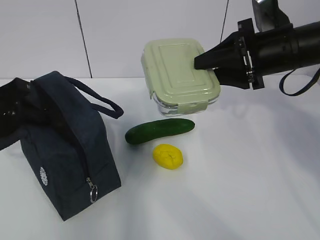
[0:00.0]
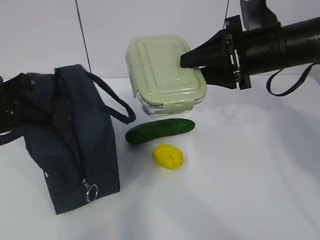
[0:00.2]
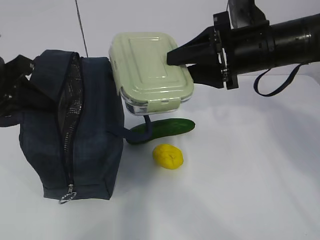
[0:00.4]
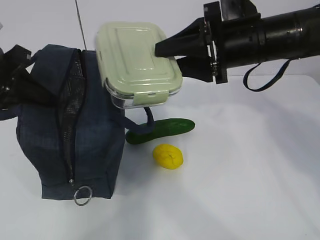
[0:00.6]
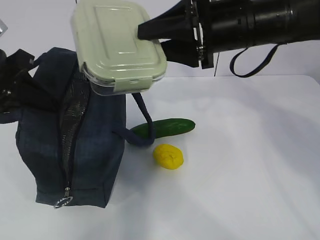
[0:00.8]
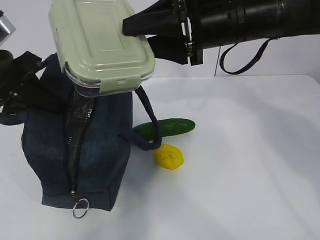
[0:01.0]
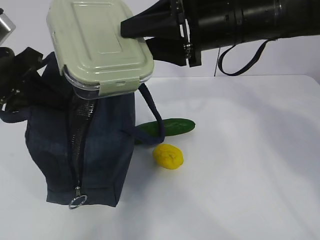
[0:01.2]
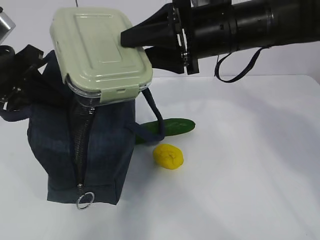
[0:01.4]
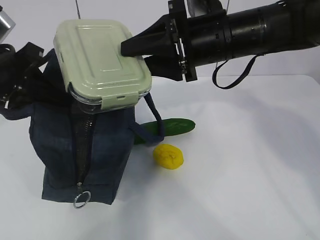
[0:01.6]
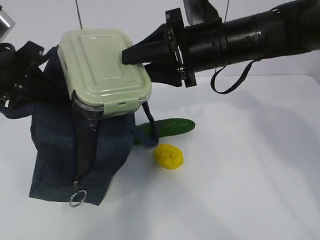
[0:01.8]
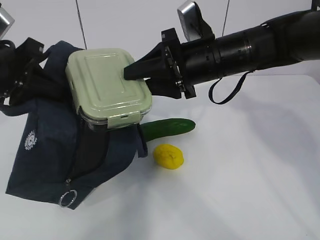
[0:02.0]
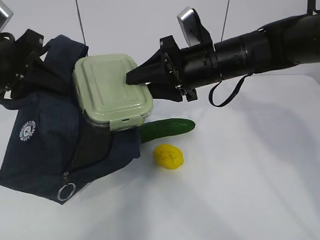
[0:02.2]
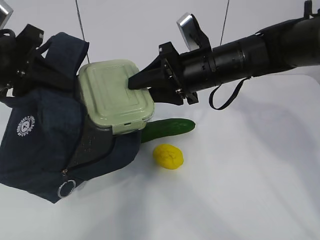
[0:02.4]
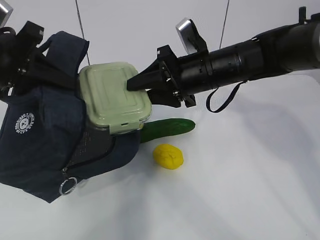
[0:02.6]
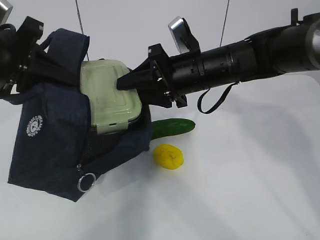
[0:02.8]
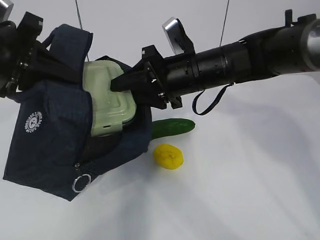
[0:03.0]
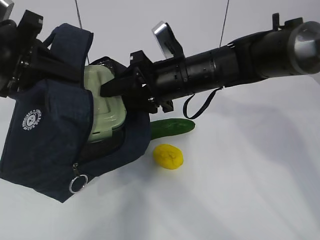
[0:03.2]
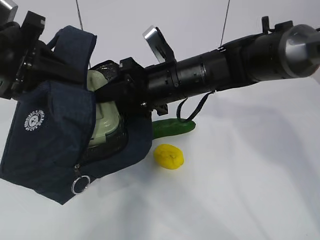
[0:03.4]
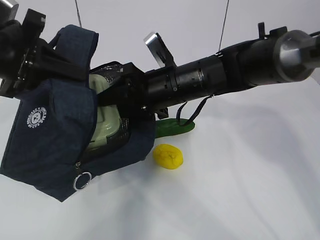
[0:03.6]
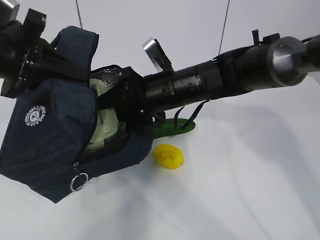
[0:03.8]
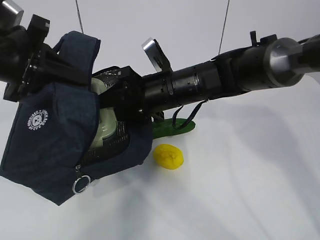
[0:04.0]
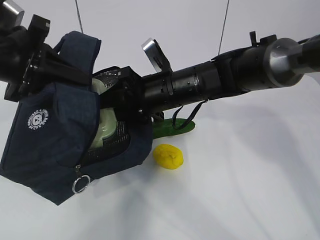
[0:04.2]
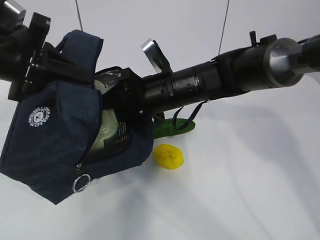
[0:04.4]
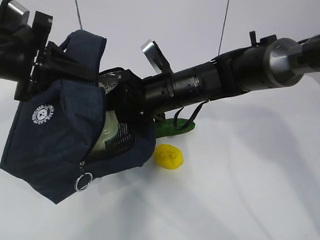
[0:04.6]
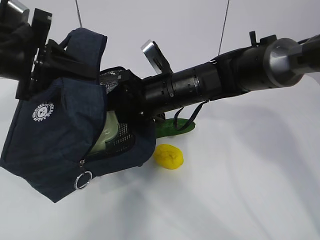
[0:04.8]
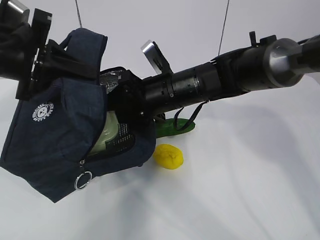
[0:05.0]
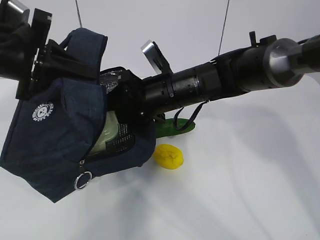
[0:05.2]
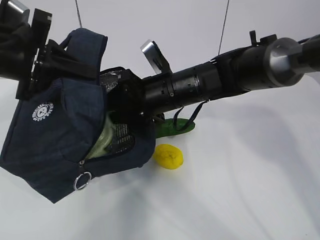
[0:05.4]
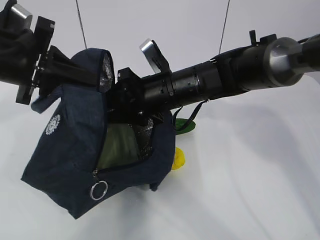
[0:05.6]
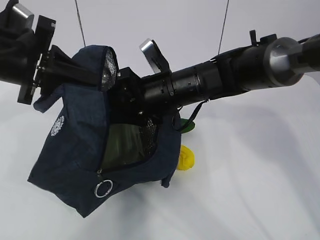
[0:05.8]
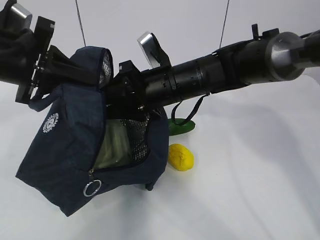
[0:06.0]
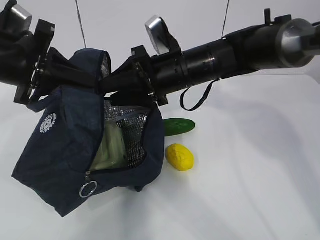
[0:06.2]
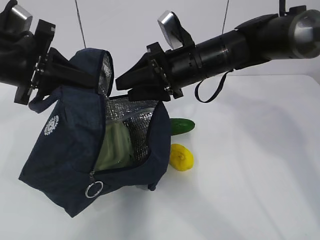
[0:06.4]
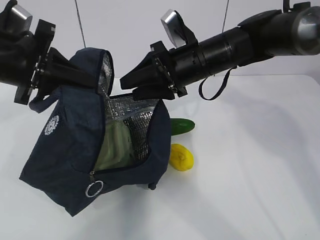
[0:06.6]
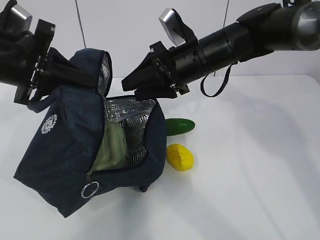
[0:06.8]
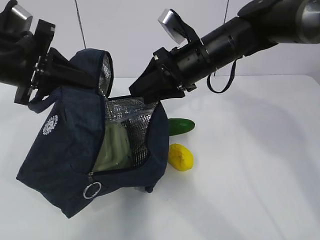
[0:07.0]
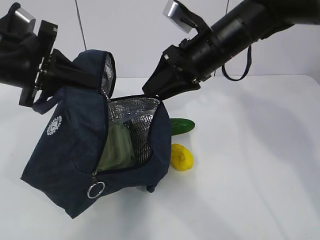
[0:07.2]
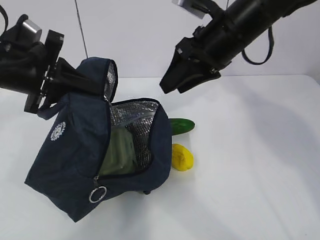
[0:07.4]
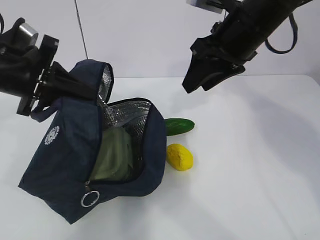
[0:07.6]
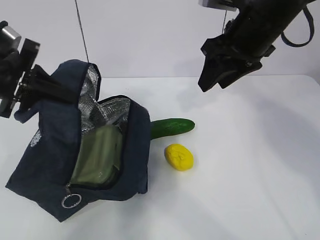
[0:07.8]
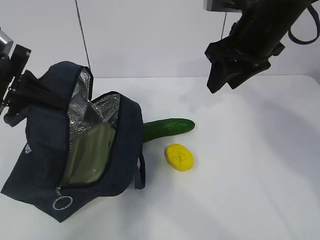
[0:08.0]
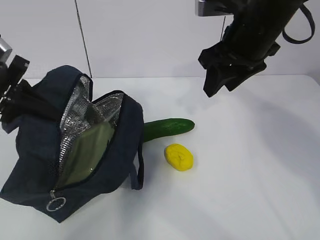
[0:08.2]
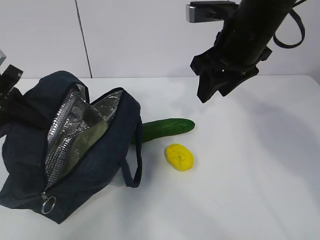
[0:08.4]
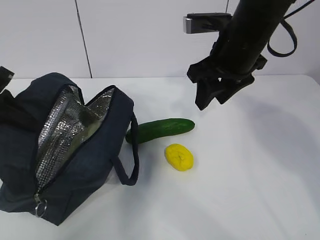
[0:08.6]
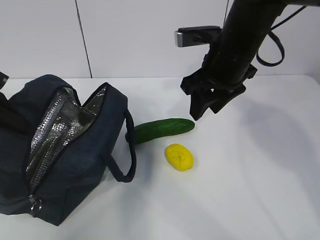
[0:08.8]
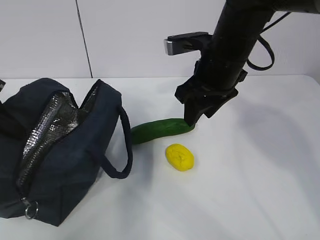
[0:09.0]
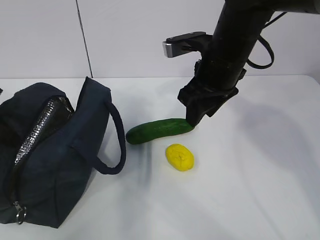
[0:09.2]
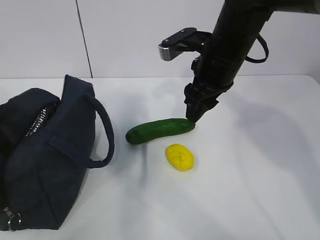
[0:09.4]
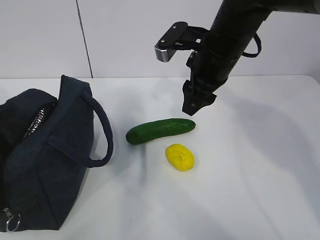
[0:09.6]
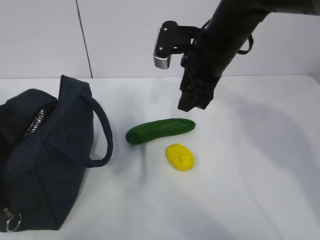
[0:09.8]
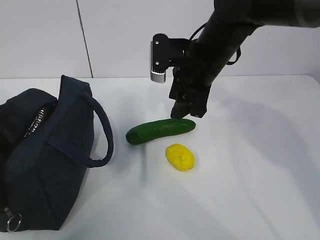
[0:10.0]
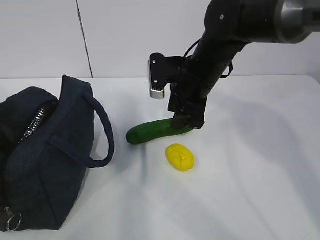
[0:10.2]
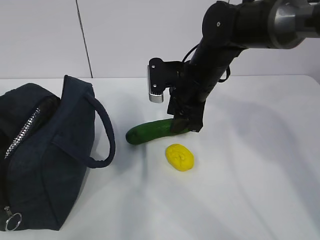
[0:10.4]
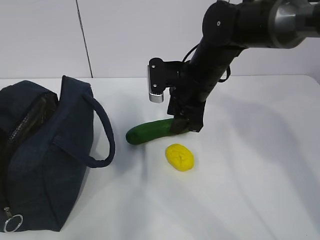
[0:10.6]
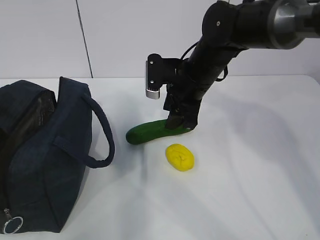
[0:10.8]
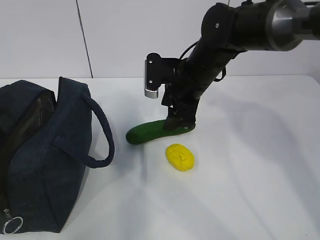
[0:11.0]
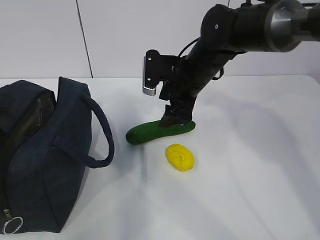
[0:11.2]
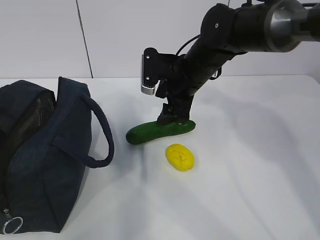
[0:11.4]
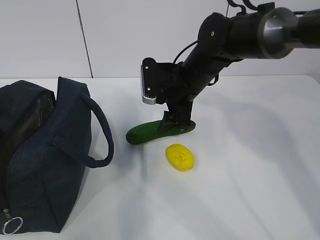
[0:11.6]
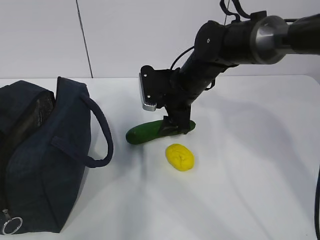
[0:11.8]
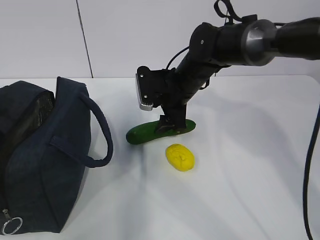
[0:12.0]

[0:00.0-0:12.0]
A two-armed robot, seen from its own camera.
Step, 0:00.6 to 0:08.0: Grab the cucumber with your right hand.
Step, 0:08.4 to 0:12.0: Place it into the bag with your right hand.
0:00.0 to 0:01.6: The left gripper moves upward, approximately 5 cm, and closes. The right gripper shifts about 10 cm to the left.
0:01.6 to 0:03.0: The right gripper moves downward, approximately 5 cm.
0:06.0 to 0:07.6: The right gripper heads to the right and upward, covering approximately 15 cm.
0:07.6 to 0:09.0: The right gripper changes place by some 5 cm. Meanwhile the left gripper travels to the left by roughly 10 cm.
0:09.0 to 0:10.4: The right gripper is displaced downward by roughly 5 cm.
0:10.4 to 0:12.0: The right gripper ends up approximately 5 cm from where it was.

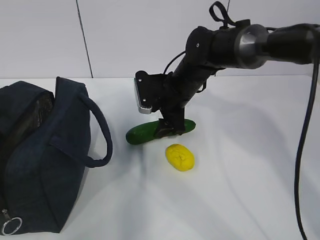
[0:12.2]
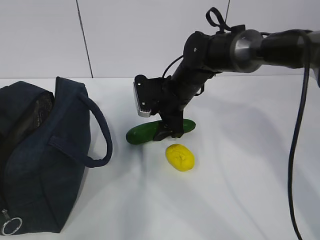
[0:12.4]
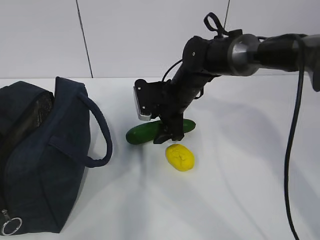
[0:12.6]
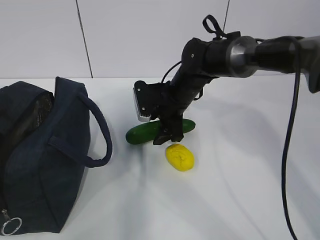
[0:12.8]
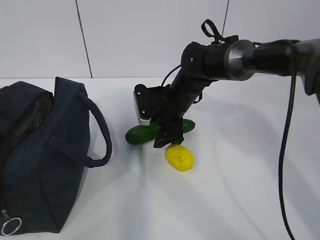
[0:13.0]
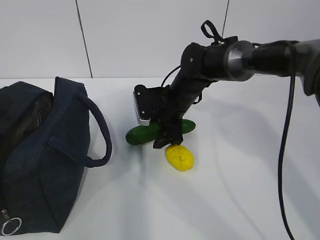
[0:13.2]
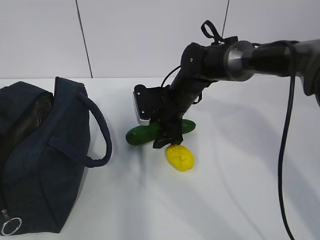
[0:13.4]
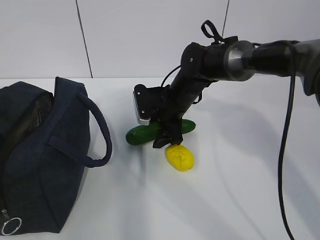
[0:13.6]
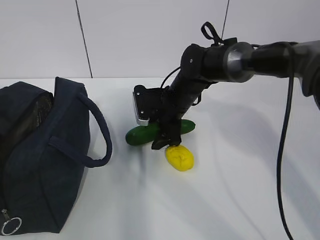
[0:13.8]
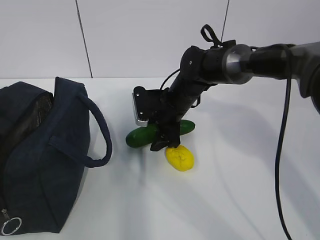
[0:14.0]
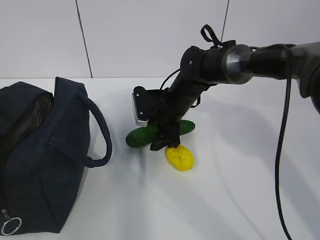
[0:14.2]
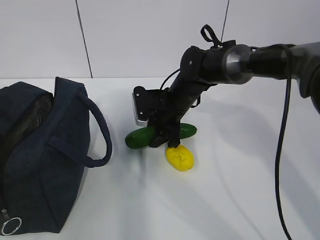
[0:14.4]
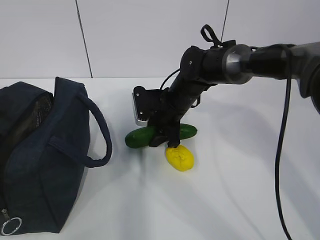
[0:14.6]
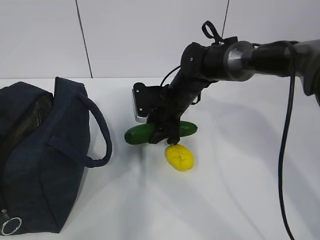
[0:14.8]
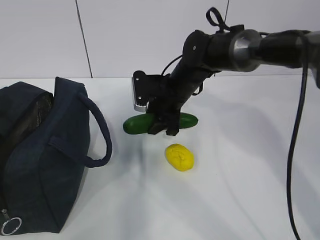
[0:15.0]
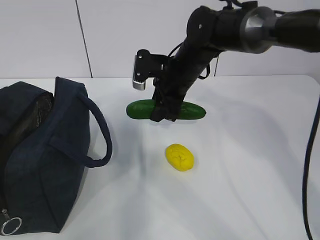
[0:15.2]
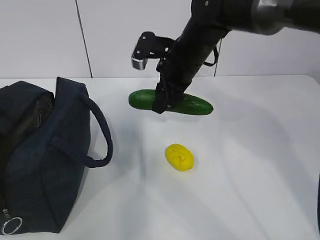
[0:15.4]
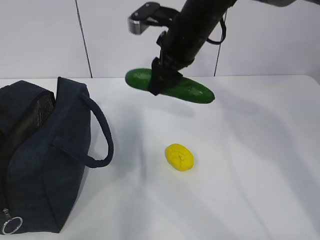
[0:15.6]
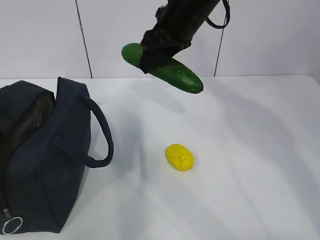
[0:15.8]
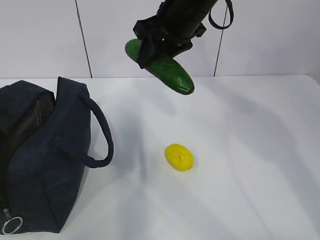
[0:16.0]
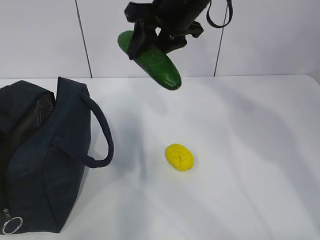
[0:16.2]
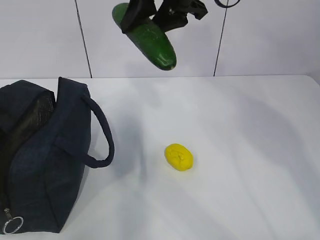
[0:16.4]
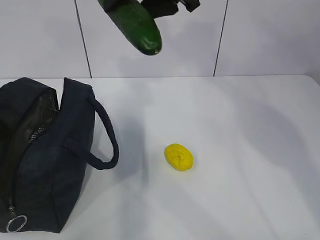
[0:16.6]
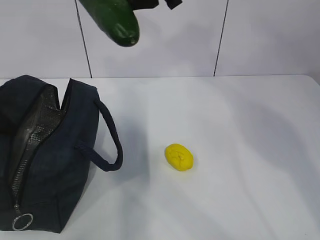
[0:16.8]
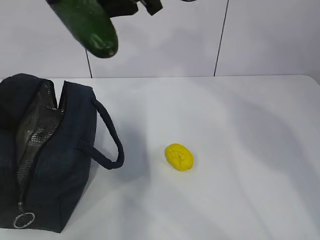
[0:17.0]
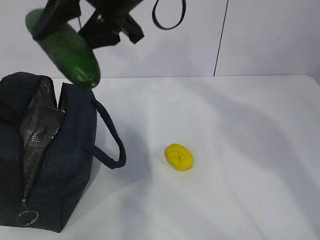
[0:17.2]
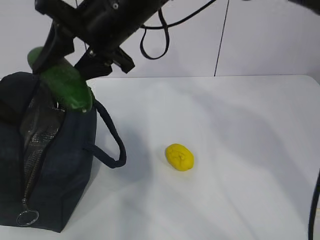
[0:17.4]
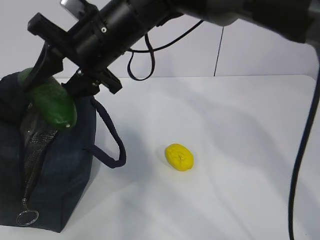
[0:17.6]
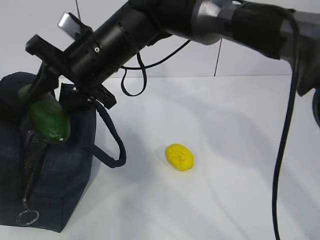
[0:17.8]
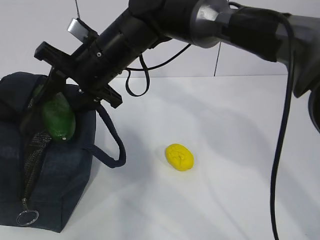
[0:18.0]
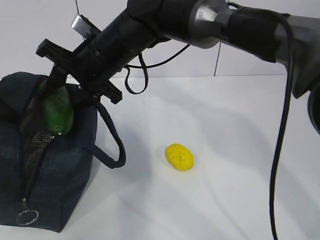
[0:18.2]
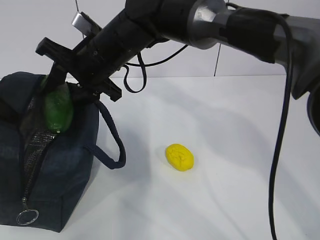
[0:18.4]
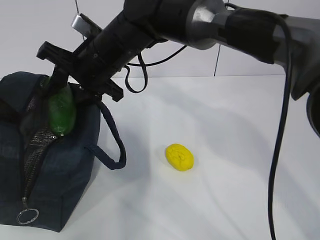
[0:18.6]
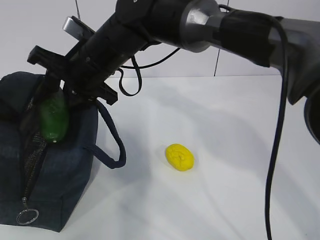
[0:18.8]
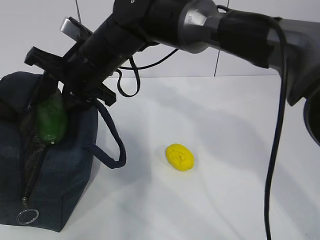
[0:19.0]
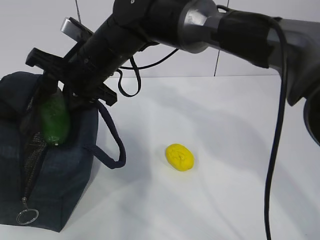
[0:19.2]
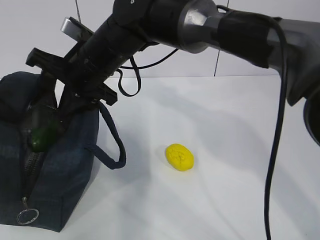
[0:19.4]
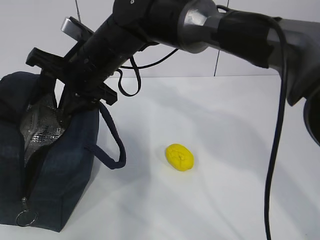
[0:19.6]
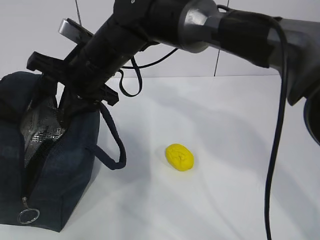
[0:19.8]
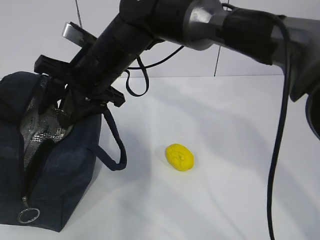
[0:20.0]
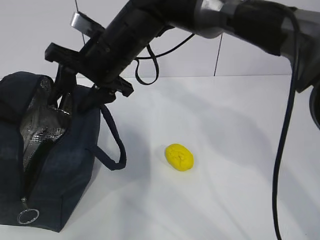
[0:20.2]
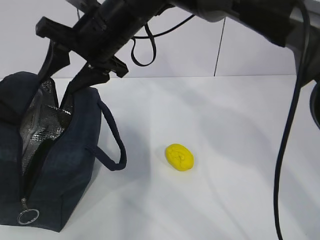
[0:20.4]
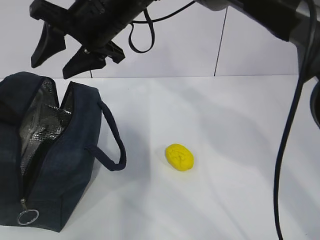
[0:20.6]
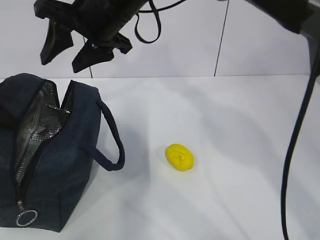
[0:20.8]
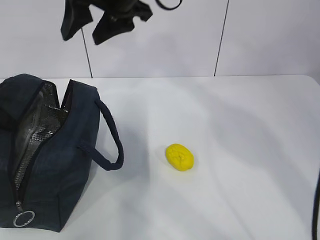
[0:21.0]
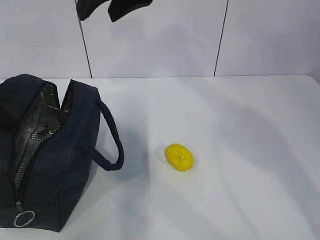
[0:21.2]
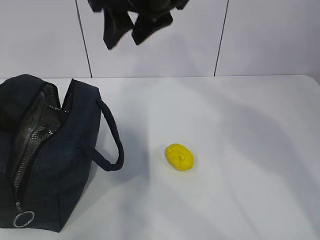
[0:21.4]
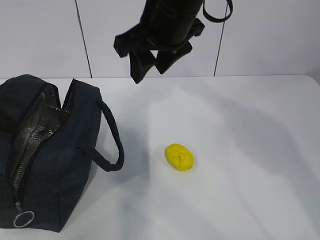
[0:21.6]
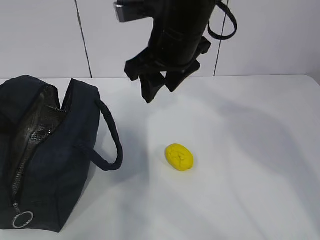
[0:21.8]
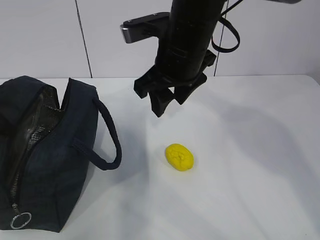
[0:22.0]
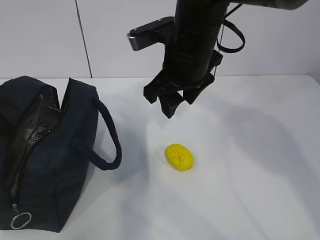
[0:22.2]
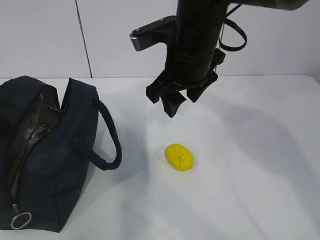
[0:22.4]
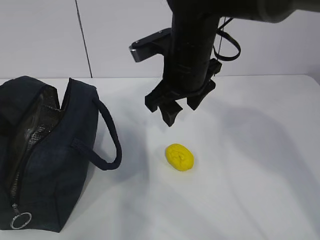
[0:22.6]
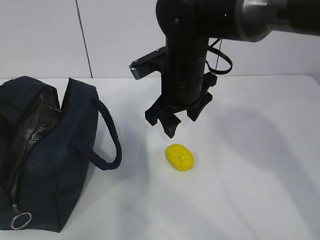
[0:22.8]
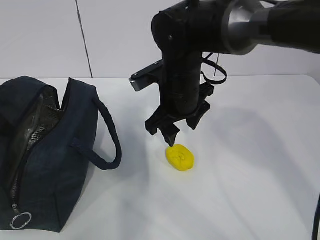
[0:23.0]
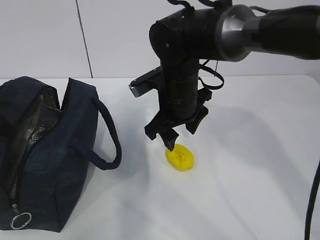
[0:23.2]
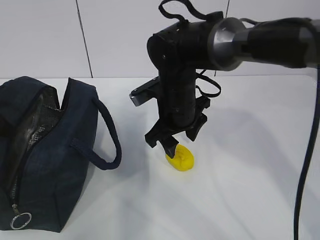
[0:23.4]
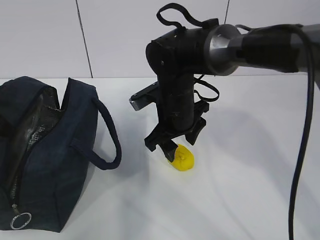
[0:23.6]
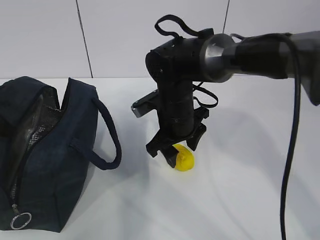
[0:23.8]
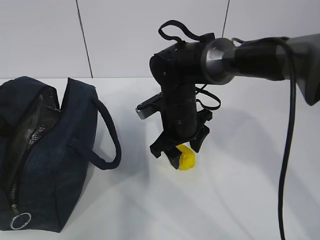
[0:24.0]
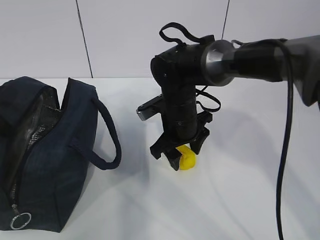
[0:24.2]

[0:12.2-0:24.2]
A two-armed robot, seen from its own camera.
Step, 0:12.2 to 0:16.6: Grab the lemon with your right hand.
Step, 0:19.4 to 0:22.6: Grab the lunch bag with your right hand.
0:12.2 to 0:13.8: The grippers move only a little.
0:13.8 to 0:15.2: The right gripper is displaced upward by some 5 cm, and closes.
0:15.2 to 0:16.6: The right gripper heads upward, covering about 20 cm.
0:16.6 to 0:18.2: The right gripper heads downward and to the left, covering about 20 cm.
0:18.2 to 0:19.8: There are only small adjustments of the grippers.
0:19.8 to 0:21.2: The right gripper heads upward and to the right, covering some 15 cm.
0:21.2 to 0:22.6: The right gripper heads downward, covering some 15 cm.
0:22.6 to 0:24.2: The right gripper heads downward, covering some 10 cm.
